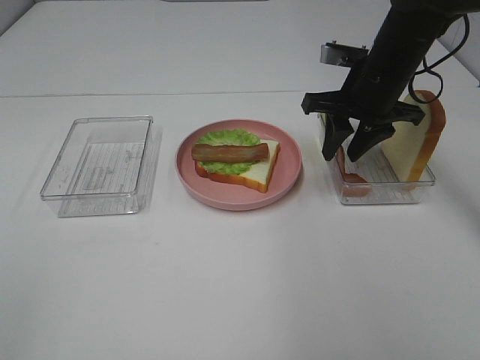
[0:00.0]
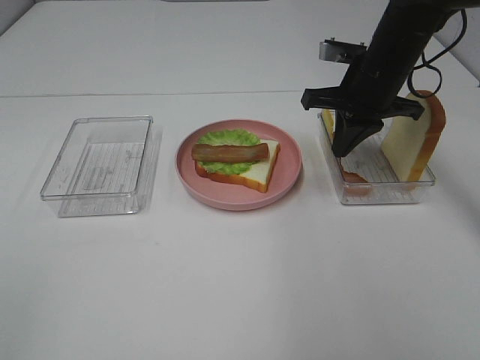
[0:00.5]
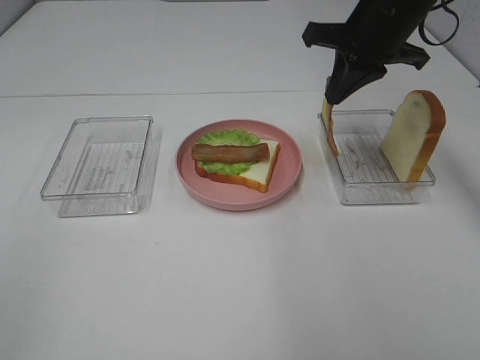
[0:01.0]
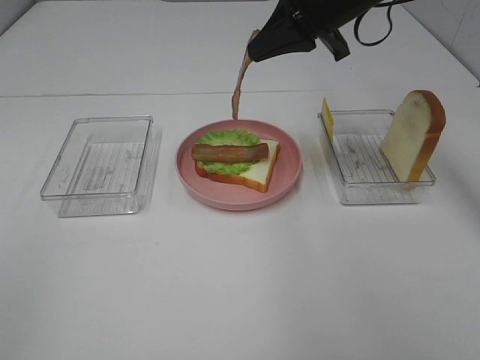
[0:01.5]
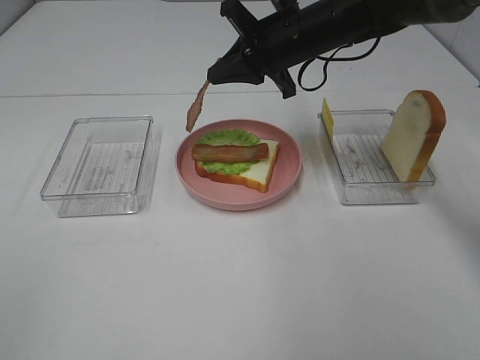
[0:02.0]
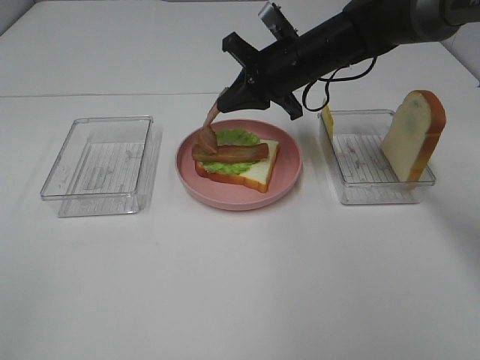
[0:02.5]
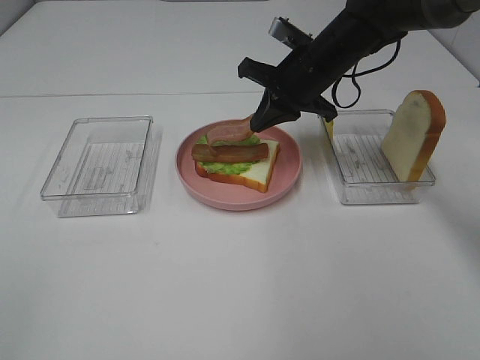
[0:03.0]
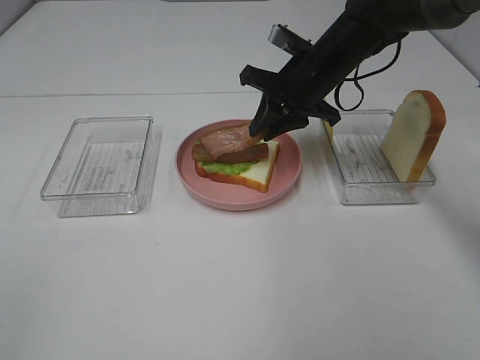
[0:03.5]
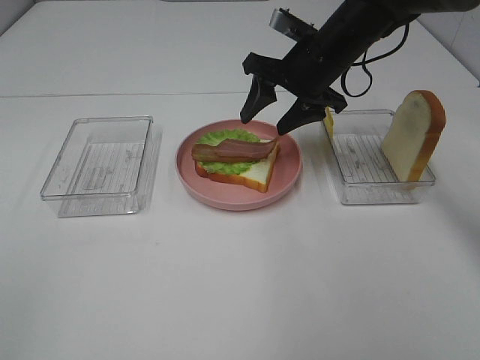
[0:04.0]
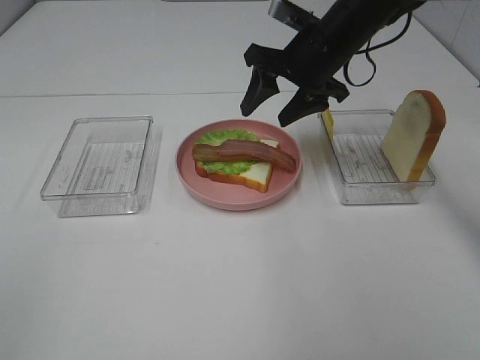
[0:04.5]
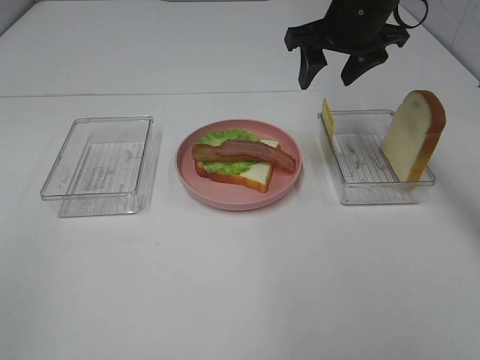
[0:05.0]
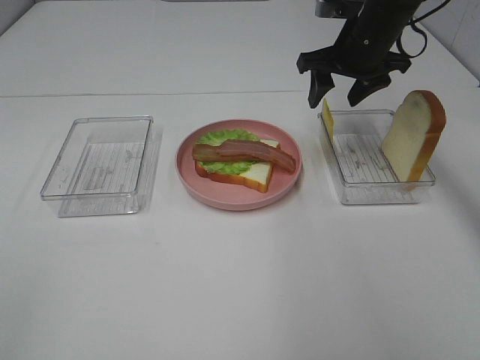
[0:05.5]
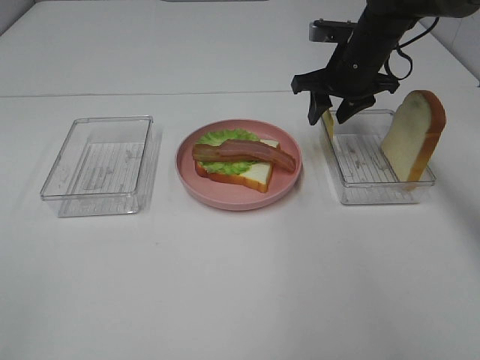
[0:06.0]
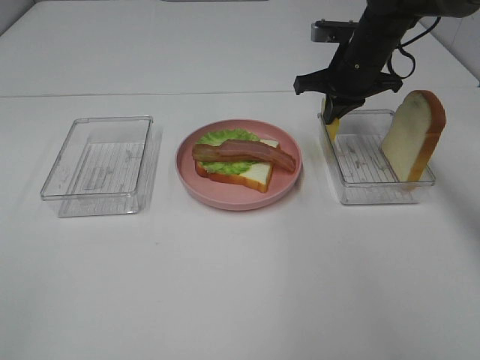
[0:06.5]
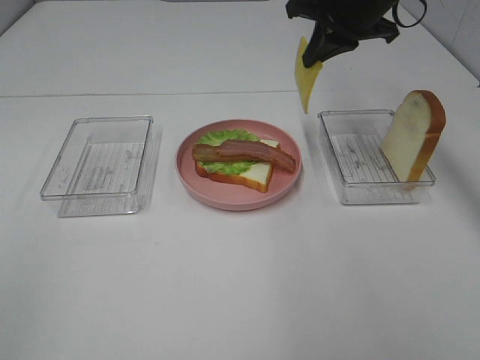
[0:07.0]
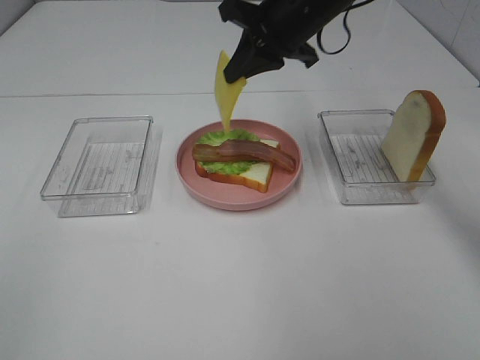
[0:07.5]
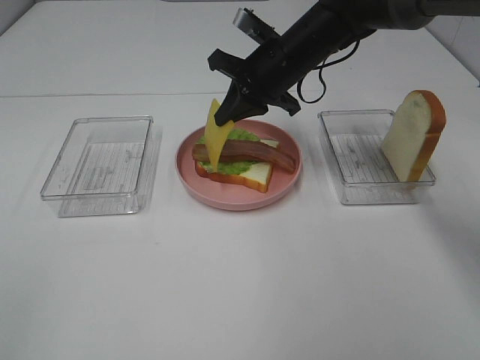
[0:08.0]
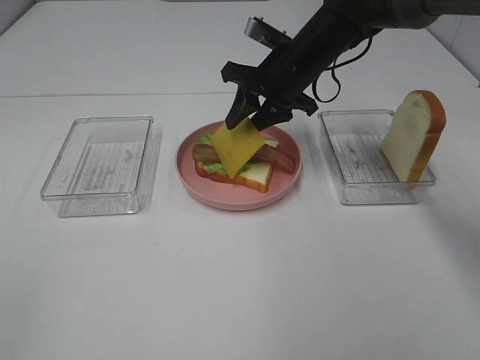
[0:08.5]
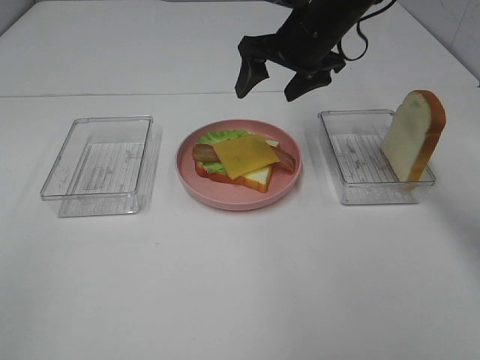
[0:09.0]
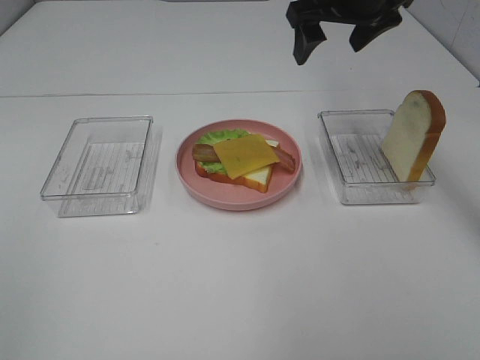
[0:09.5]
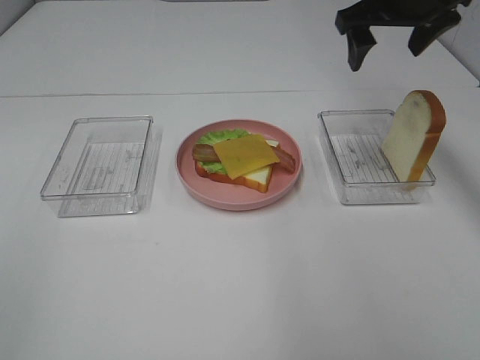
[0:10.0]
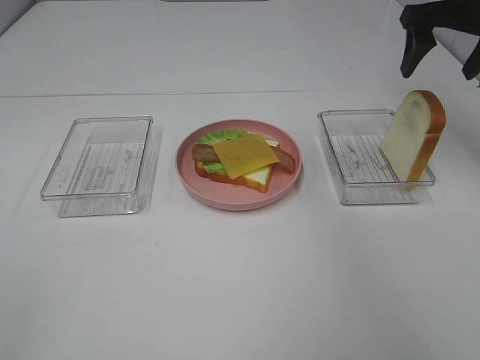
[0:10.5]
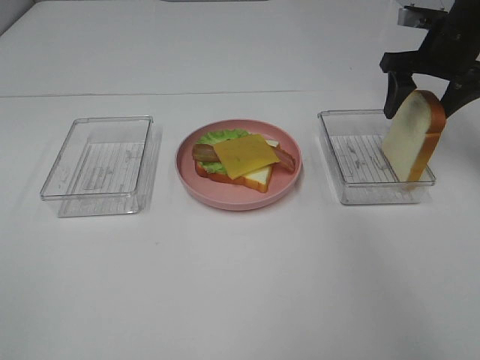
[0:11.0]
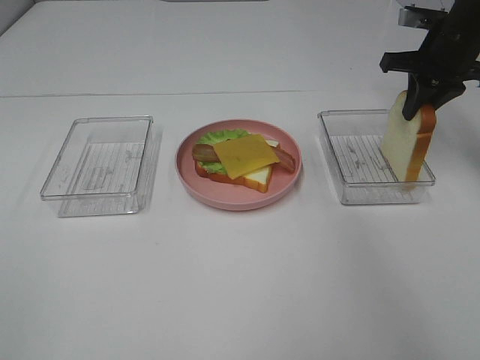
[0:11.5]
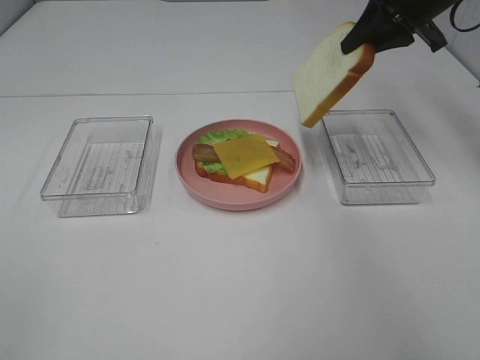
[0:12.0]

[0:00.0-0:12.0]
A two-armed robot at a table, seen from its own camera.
Task of the whole recording: Make sandwiches.
Step, 0:01.0 to 0:04.0: Right hand:place bacon on bacon.
Step, 0:04.5 to 0:06.0: Right hand:grab the cheese slice.
Step, 0:06.5 to 0:09.0: Right hand:place the cheese slice on top of the bacon.
Step, 0:09.5 to 0:11.0: Right hand:grab the bread slice.
0:00.0 to 0:02.0: The right gripper travels to the left by roughly 10 cm, and closes up.
0:02.0 to 0:04.0: The right gripper opens.
0:04.0 to 0:06.0: The right gripper shifts some 5 cm to the right, and goes upward and returns, some 5 cm each way.
0:06.0 to 0:08.0: The right gripper heads to the left, covering approximately 10 cm, and closes its fingers.
0:08.0 to 0:10.0: The right gripper is displaced to the right and upward by about 15 cm, and opens up.
0:10.0 to 0:12.0: The right gripper closes.

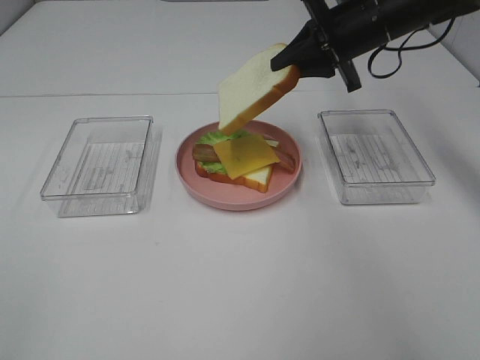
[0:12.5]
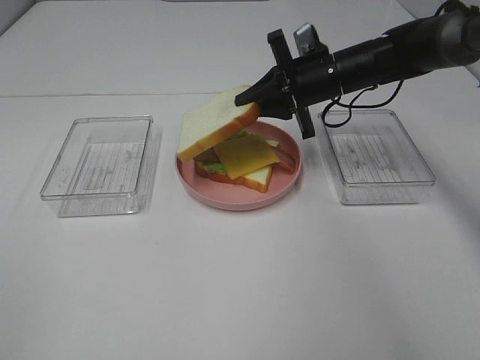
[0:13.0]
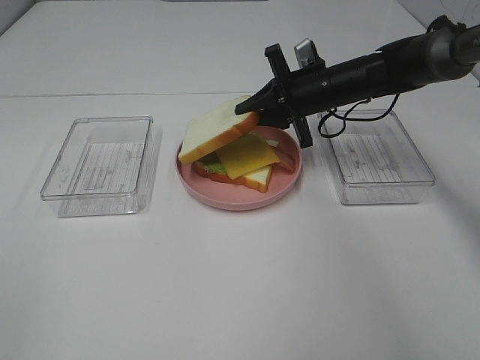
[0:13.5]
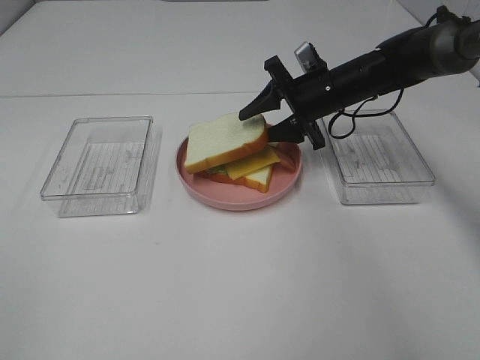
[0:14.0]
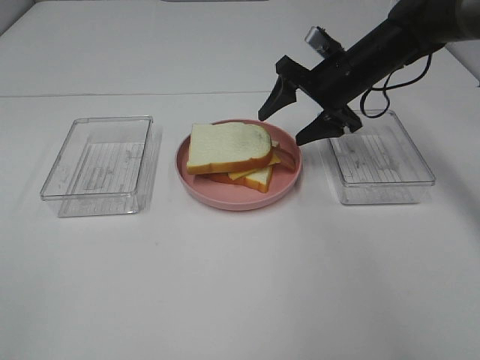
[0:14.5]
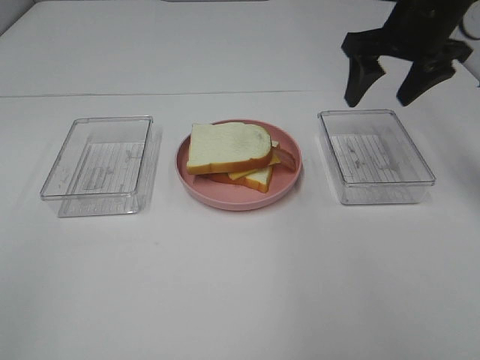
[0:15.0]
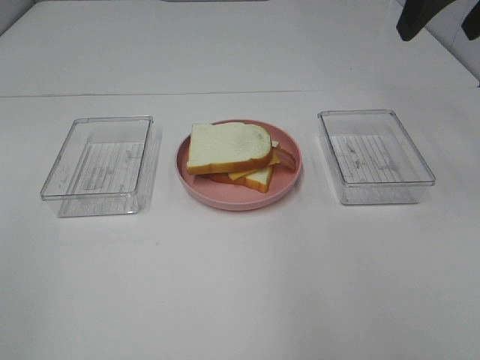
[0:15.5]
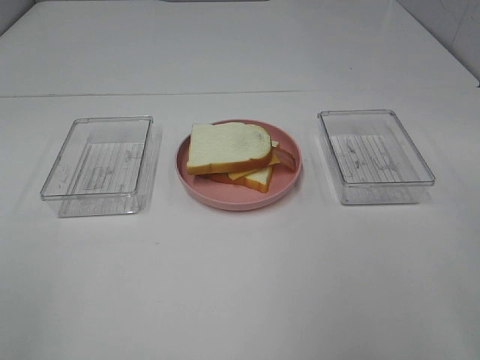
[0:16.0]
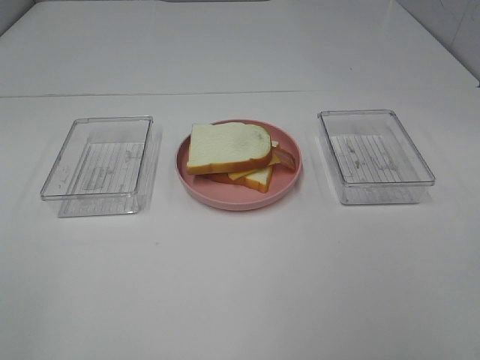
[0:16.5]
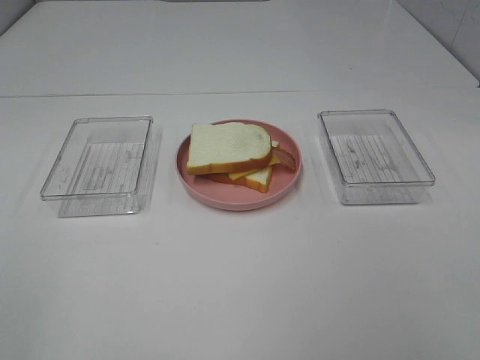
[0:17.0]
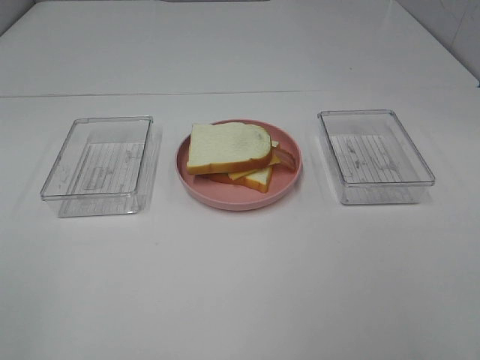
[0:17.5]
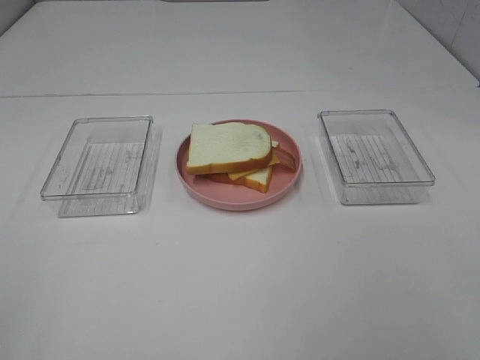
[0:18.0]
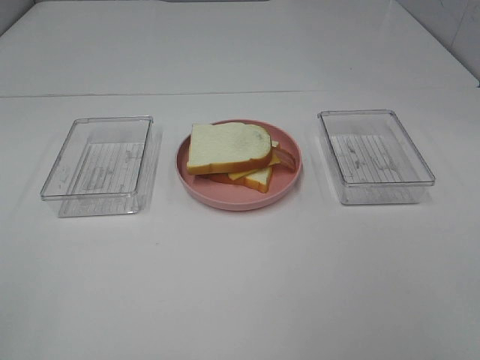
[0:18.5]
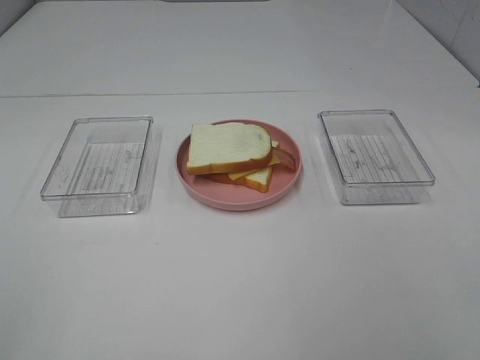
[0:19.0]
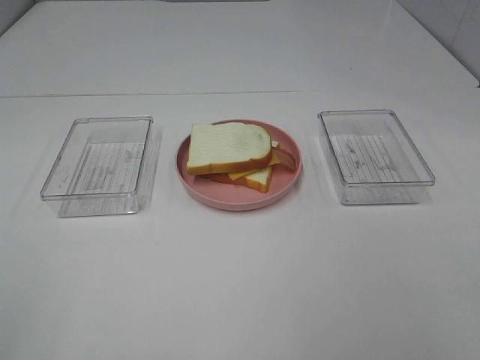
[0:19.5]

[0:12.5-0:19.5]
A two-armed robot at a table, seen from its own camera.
Task of the whole recording: Make sandwiches.
Step, 0:12.5 to 0:14.5: Right hand:place the bread slice on the cheese slice.
0:12.5 to 0:14.5: The right gripper moves downward, roughly 5 cm, and opens its fingers.
0:14.5 to 0:16.0: The right gripper travels backward and upward by some 35 cm.
